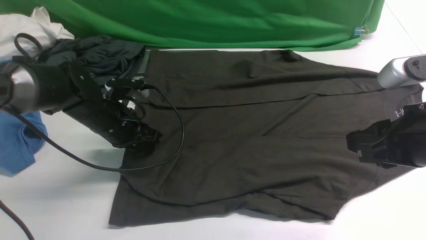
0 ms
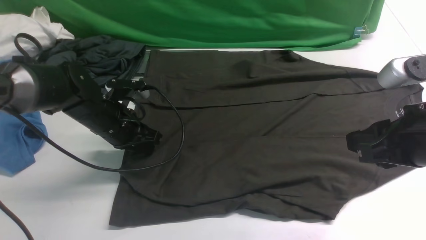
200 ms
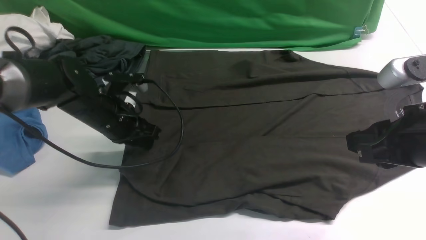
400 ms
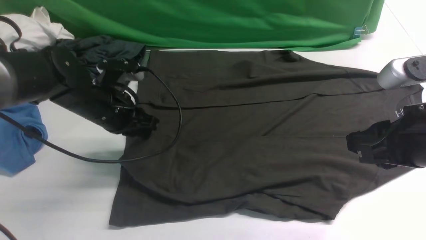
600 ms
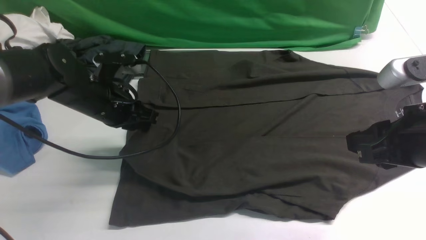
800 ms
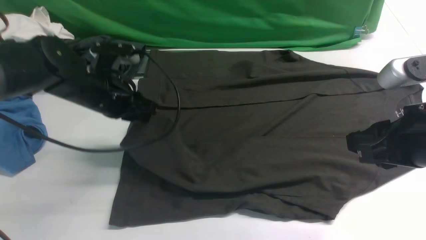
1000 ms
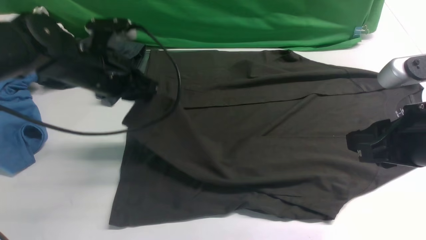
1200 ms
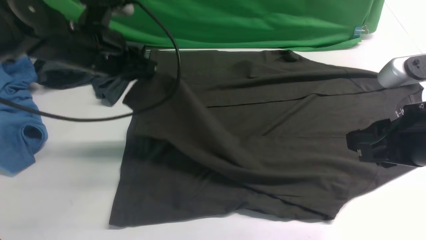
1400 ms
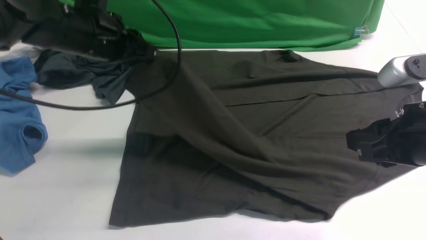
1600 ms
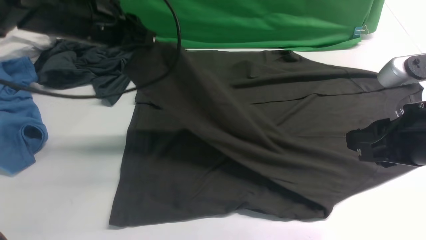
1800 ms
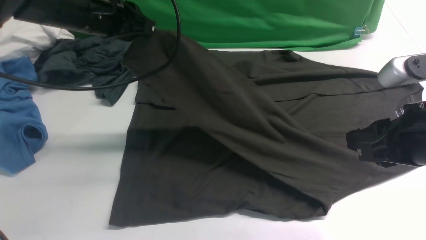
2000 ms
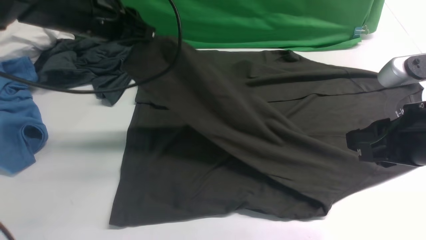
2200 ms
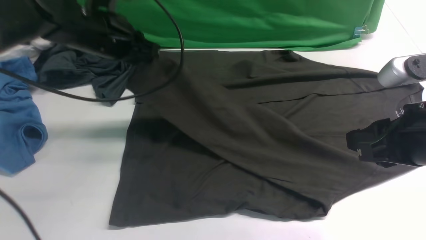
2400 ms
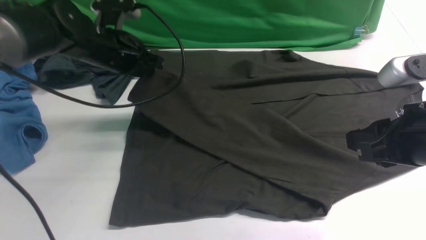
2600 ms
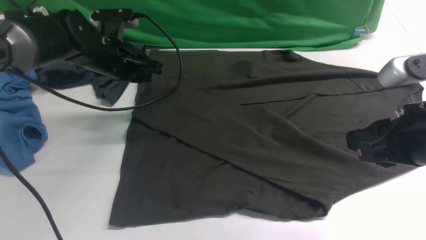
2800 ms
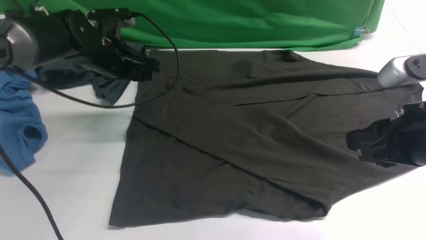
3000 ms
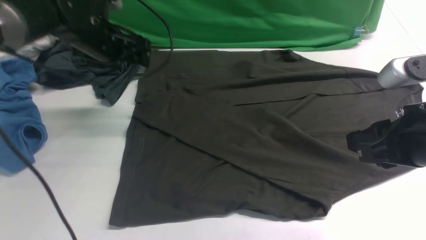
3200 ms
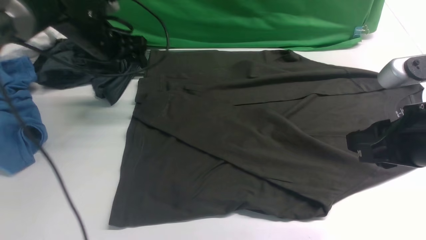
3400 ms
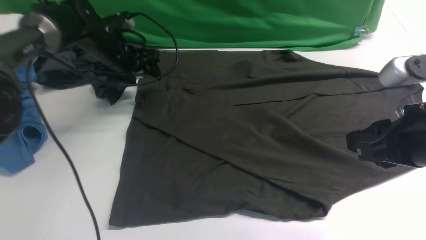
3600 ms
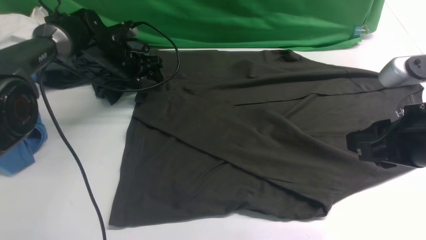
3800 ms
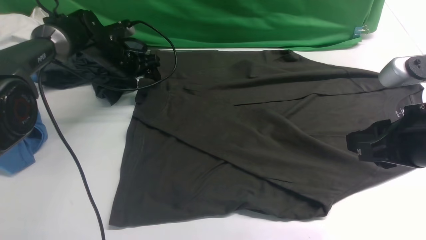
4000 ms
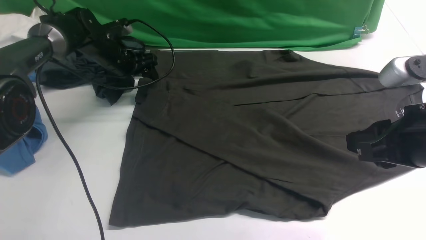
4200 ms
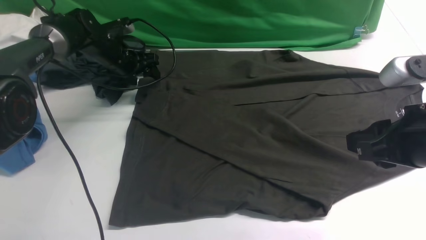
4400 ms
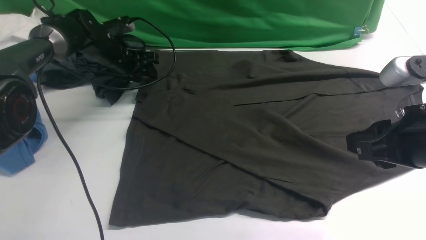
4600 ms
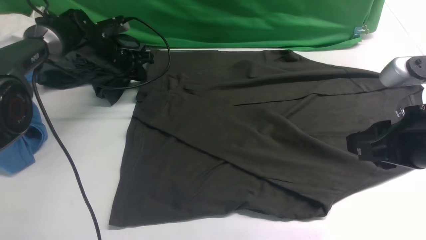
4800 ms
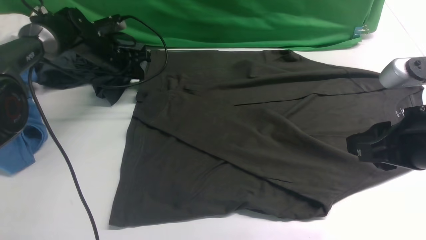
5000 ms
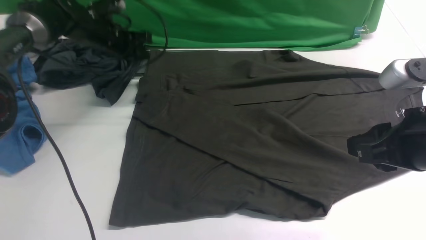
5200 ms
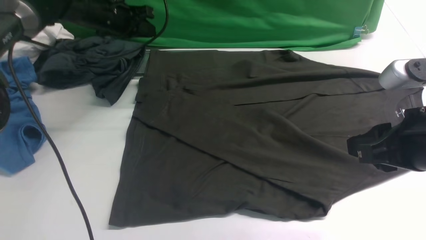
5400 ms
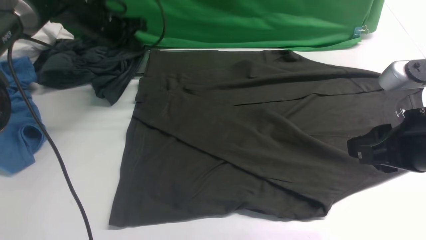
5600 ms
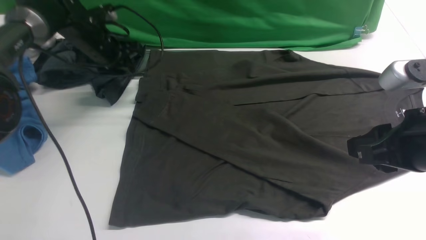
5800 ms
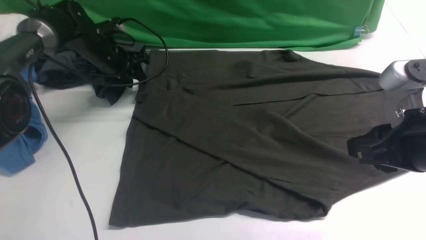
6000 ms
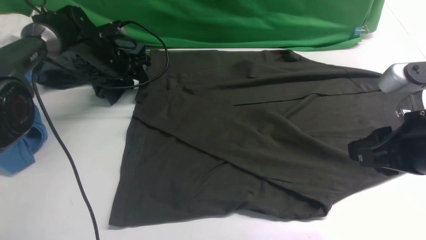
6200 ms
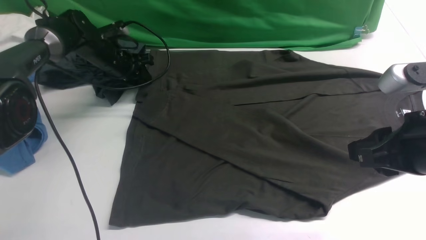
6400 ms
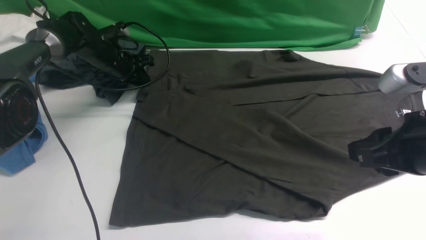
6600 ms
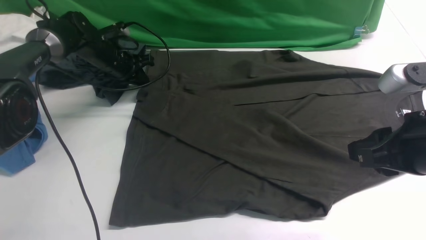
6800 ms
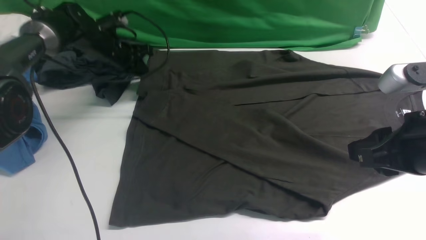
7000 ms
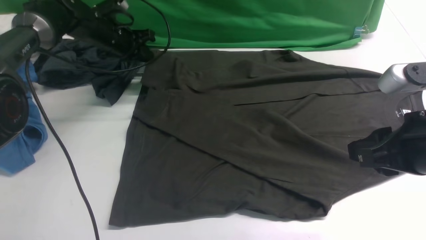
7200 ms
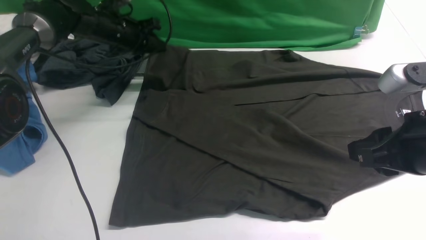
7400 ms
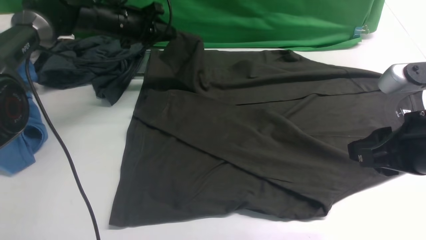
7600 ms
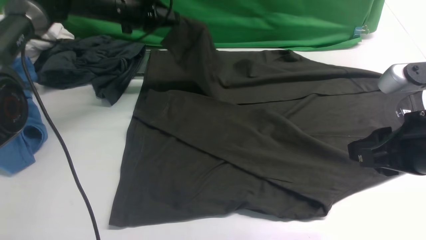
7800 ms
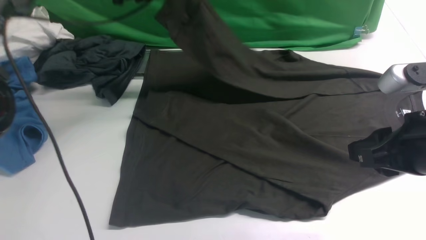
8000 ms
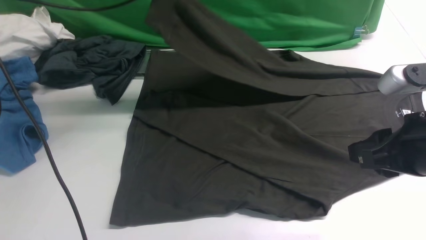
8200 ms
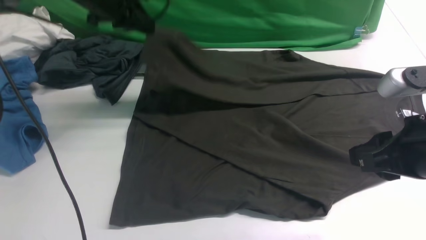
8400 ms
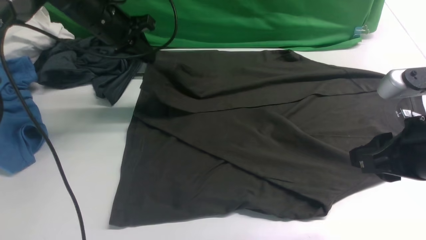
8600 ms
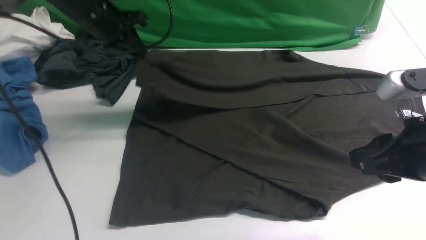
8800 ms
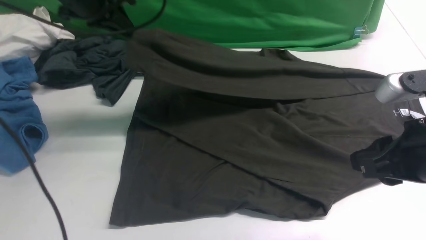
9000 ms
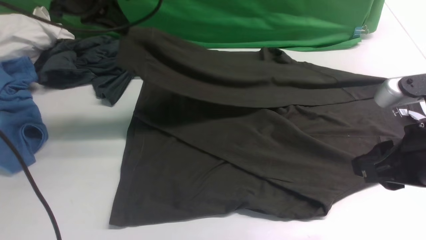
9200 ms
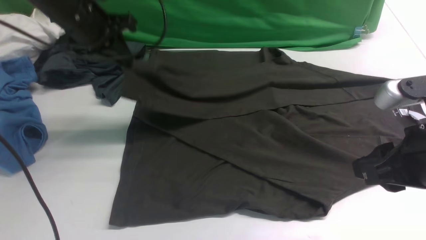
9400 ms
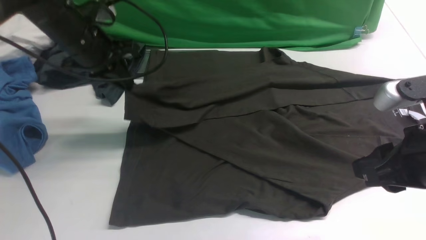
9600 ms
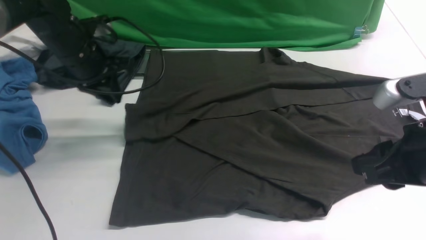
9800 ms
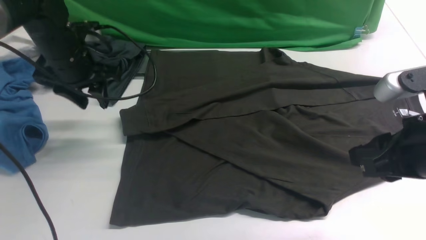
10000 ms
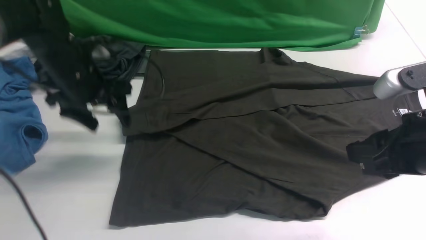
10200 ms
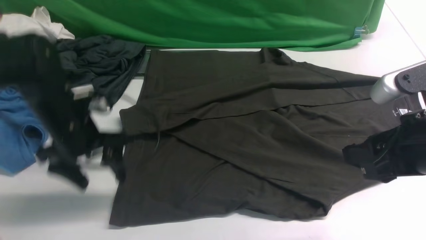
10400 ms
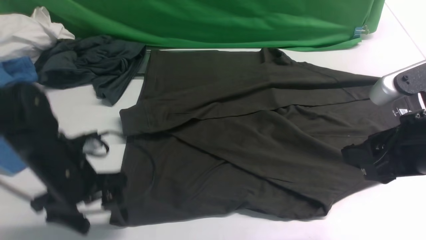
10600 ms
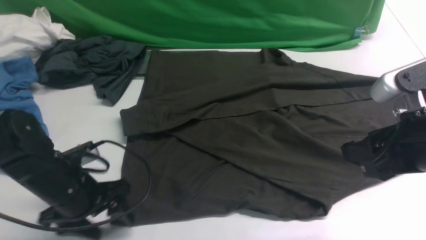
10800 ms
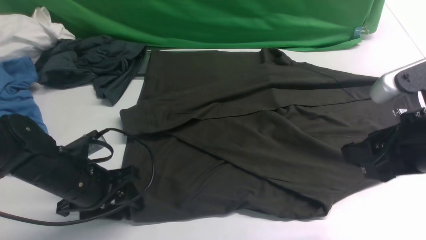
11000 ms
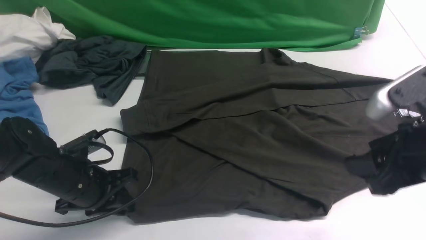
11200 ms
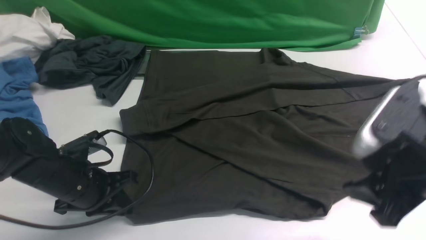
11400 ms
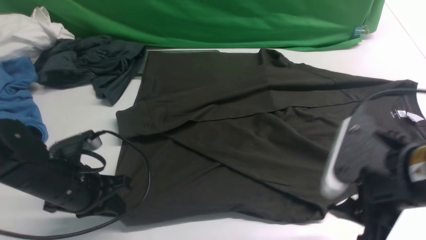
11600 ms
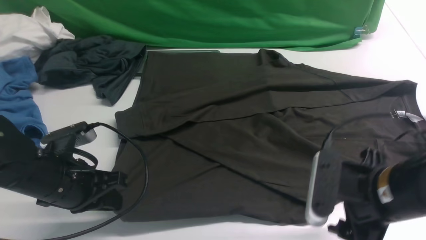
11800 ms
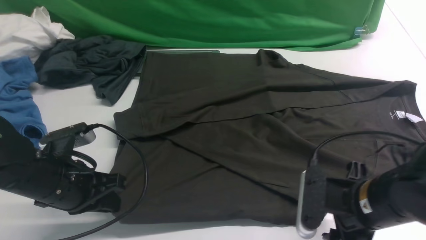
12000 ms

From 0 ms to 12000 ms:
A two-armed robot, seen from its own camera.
Step, from 600 ms to 3200 ms: use the left arm to drag and place the cuff at the centered position on the left edge of the fabric.
Step, from 3400 ms to 7400 ms: use the left arm to clamp the cuff farthest from it.
Step, from 7600 ms to 10000 ms: use the left arm to drag and drop the cuff onto the cuff closest to the left arm.
From 0 ms to 1600 ms: The left gripper shifts some 15 cm upward.
From 1600 ms to 3000 ms: The left gripper travels downward and forward by some 10 cm, and opens its fingers.
From 3000 ms to 4400 ms: The left gripper is displaced forward and downward by some 10 cm.
From 4400 ms to 6000 ms: The left gripper closes, then reopens.
From 6000 ms to 7600 ms: The left gripper heads upward, covering about 5 cm, and closes up.
From 7600 ms to 9000 ms: The left gripper moves upward and backward, approximately 15 cm.
From 9000 ms to 10400 ms: The left gripper travels downward and backward by roughly 20 cm, and opens up.
From 10400 ms to 12000 ms: The left gripper heads backward, covering about 10 cm, and closes up. Meanwhile the right gripper moves downward and to the left, some 10 cm.

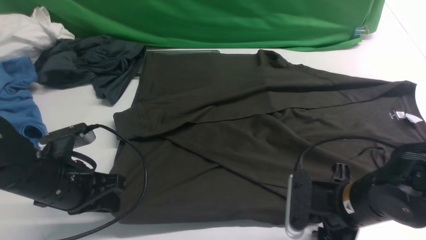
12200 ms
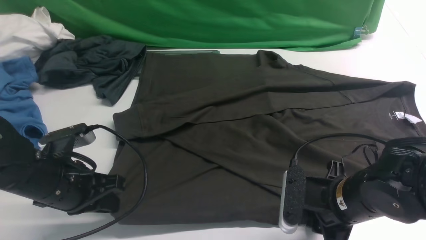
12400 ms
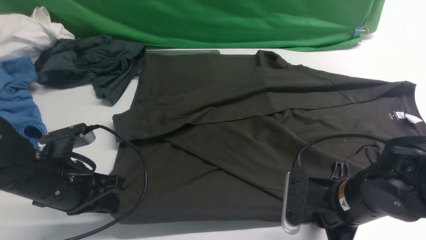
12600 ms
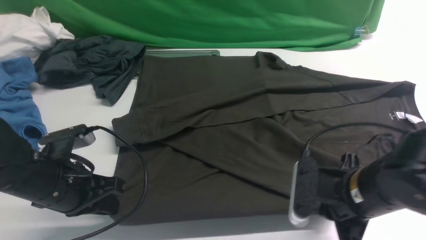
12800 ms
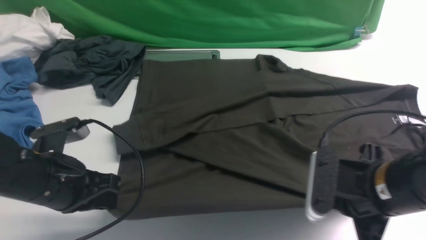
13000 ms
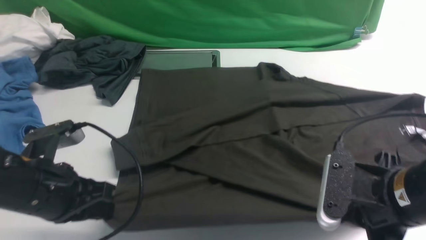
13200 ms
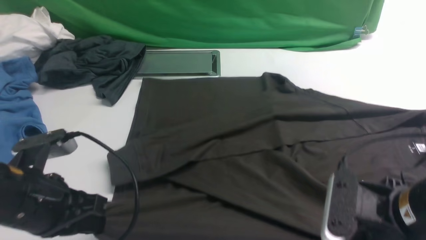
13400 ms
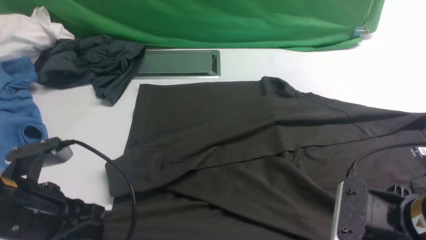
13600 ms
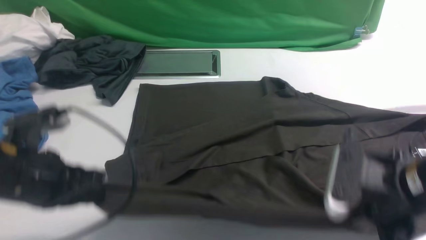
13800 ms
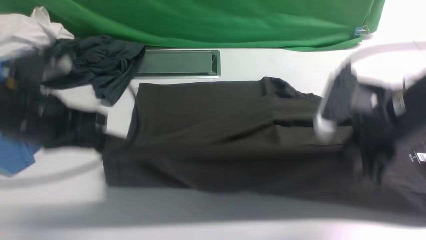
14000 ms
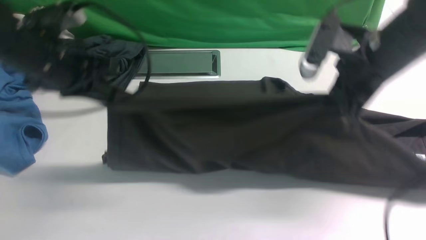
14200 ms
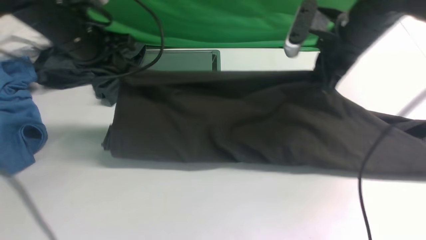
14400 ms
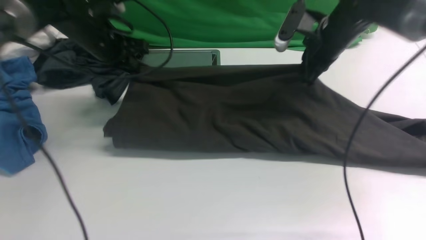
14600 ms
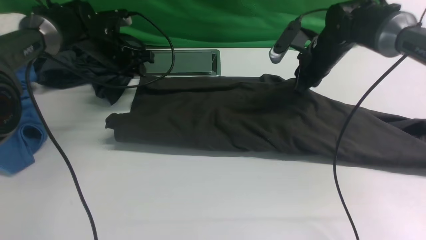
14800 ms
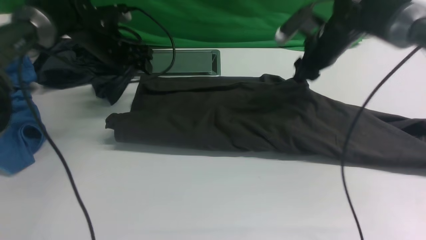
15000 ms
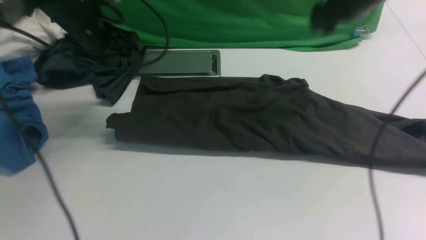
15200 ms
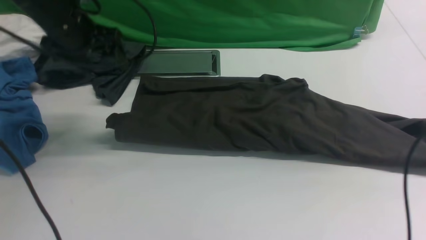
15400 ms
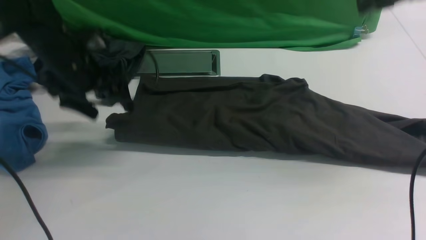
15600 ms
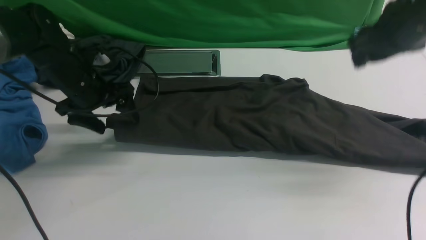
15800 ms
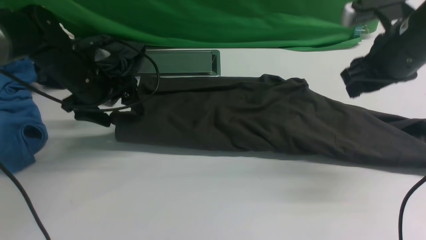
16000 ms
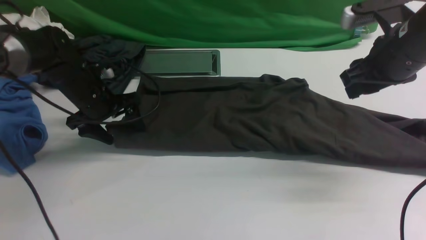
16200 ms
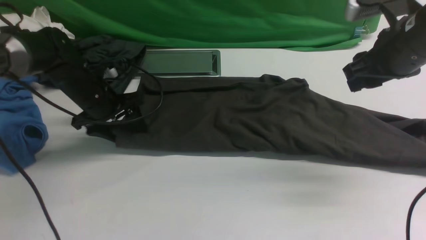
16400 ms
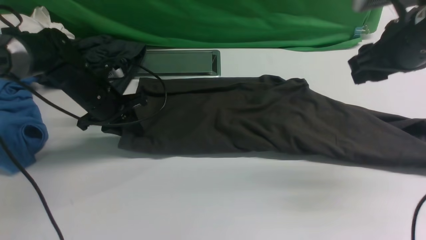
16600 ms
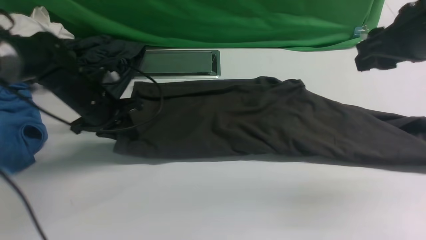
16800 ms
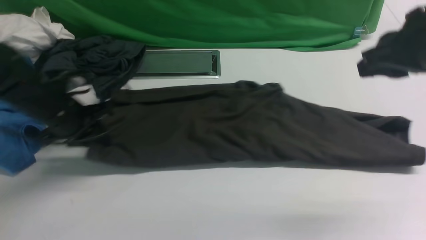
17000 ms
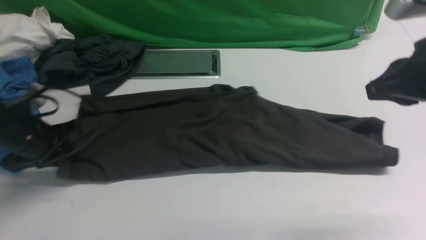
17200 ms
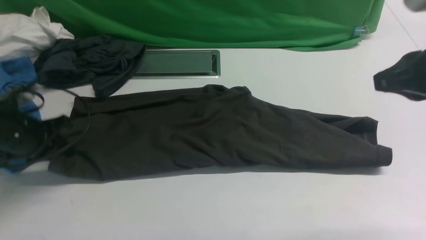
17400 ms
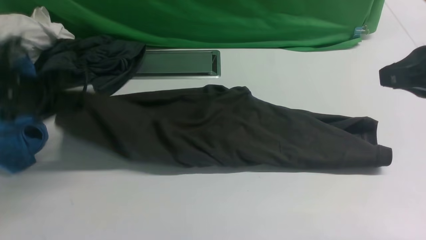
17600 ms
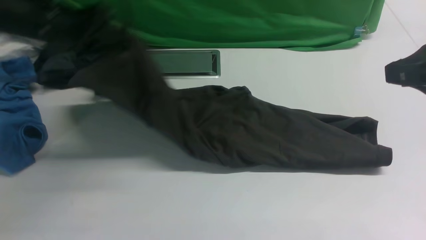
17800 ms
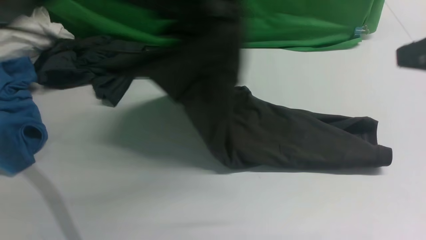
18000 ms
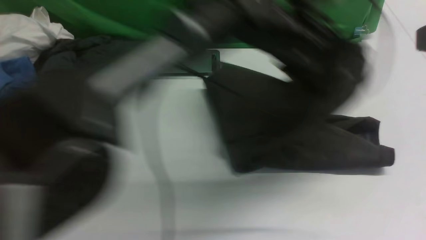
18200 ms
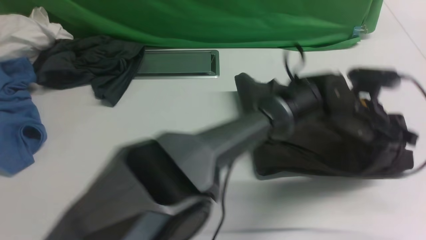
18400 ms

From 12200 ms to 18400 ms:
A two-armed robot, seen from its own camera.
Step, from 13000 ms to 15000 ms: use both arms to drag the lower edge of the fabric forward and fold it over the upper edge.
Step, from 15200 ms to 17000 ms: Hold the left edge of the fabric with your left arm.
From 12200 ms to 13800 ms: Both grippers move upward, about 10 cm. The right gripper closes up.
From 13800 ms to 15400 ms: The right gripper is displaced forward and upward by some 25 cm, and opens up, while the left gripper moves forward, some 25 cm, and opens its fingers.
From 15400 ms to 16800 ms: The left gripper travels downward by about 10 cm, and closes. The right gripper goes roughly 10 cm backward, and closes up.
From 16800 ms to 18400 ms: The left gripper moves to the right, about 40 cm. The right gripper heads backward and upward, covering approximately 15 cm, and closes.
